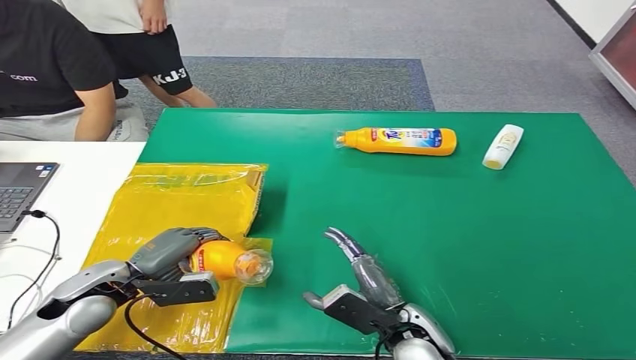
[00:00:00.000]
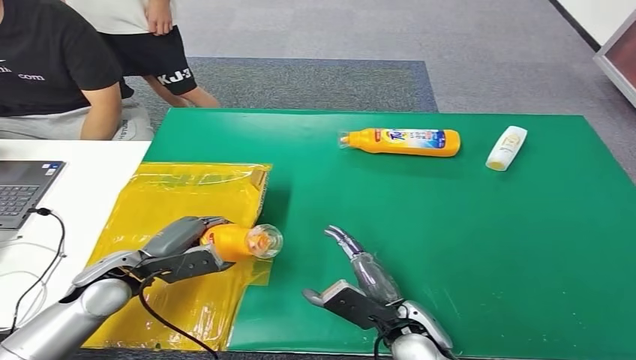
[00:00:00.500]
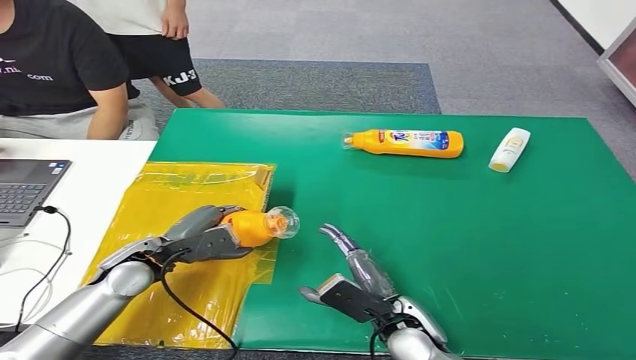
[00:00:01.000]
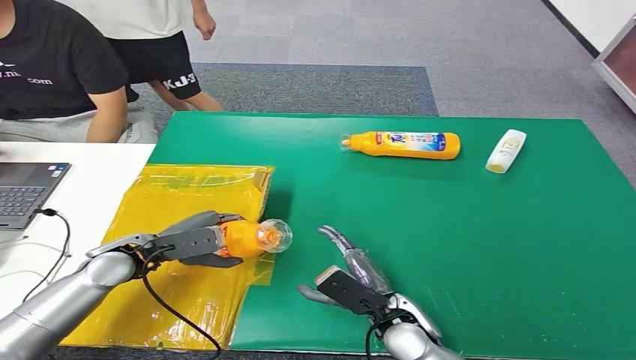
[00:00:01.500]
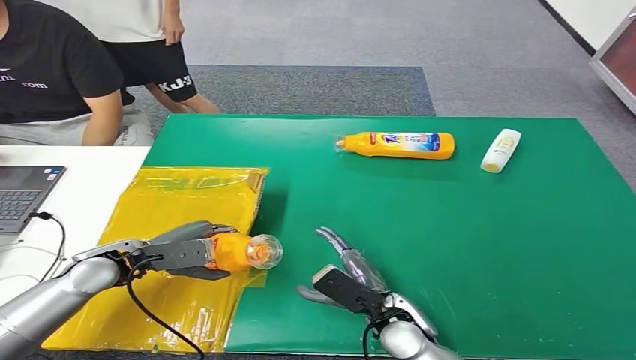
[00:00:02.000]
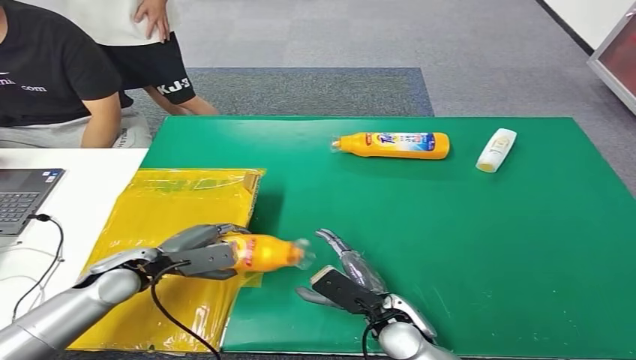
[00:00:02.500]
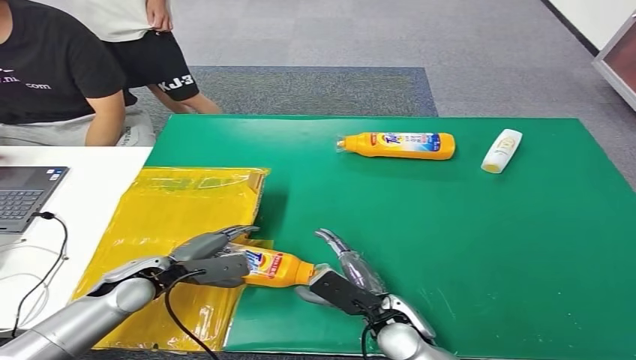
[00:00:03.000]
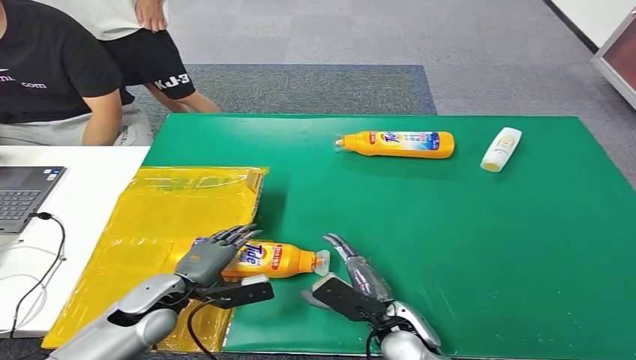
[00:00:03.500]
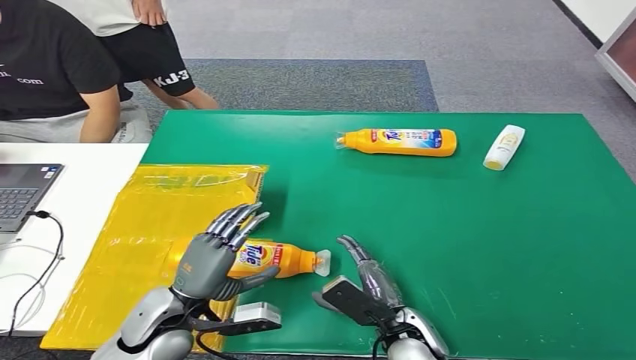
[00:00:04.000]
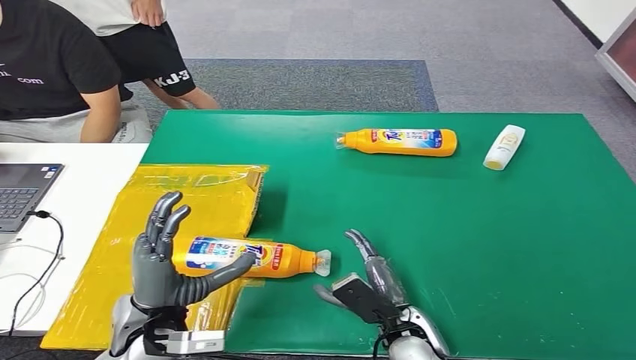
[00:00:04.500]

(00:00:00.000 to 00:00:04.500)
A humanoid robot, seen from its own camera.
Step, 00:00:00.000 - 00:00:04.500: Turn the bottle to the front side.
